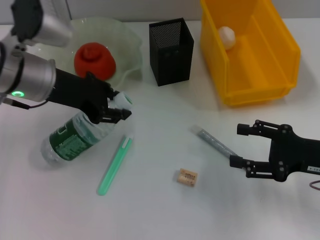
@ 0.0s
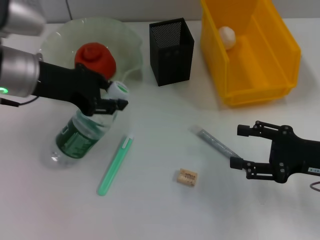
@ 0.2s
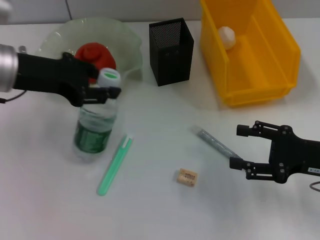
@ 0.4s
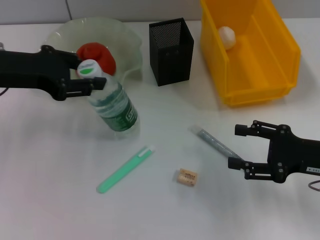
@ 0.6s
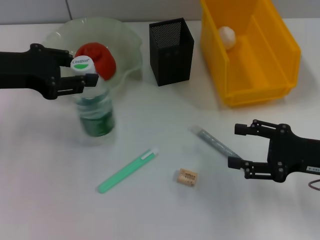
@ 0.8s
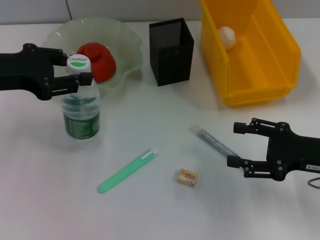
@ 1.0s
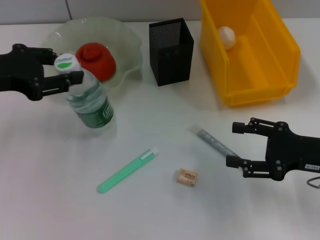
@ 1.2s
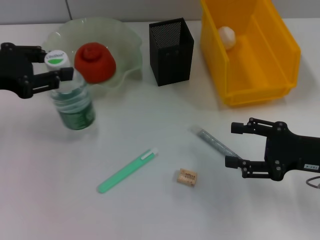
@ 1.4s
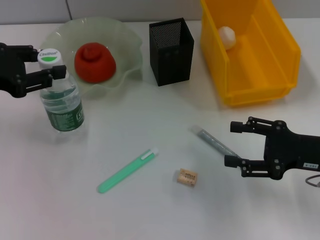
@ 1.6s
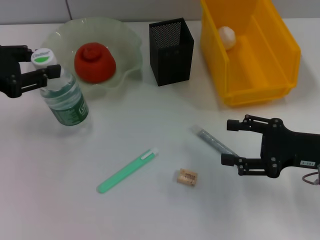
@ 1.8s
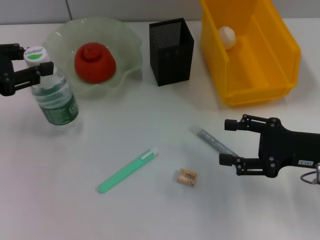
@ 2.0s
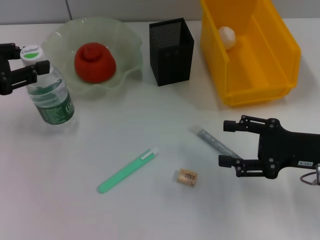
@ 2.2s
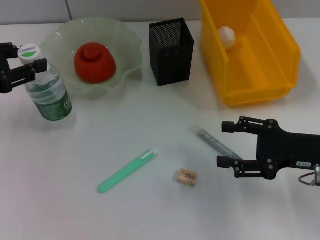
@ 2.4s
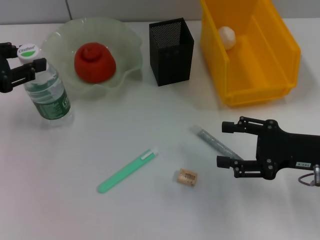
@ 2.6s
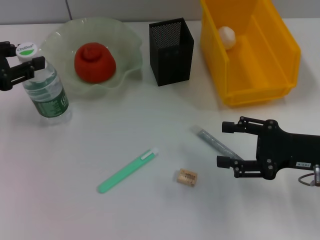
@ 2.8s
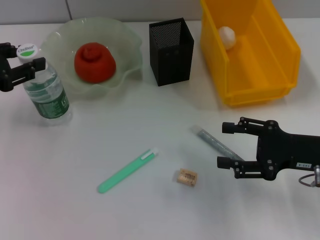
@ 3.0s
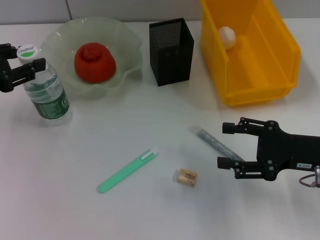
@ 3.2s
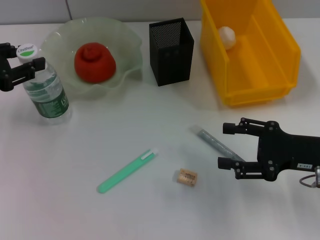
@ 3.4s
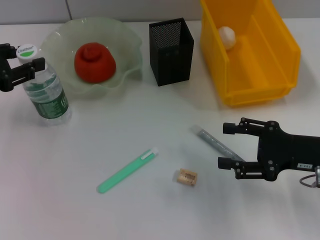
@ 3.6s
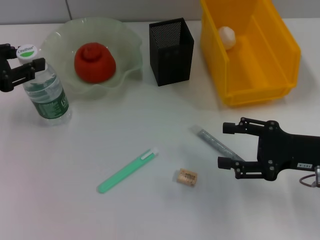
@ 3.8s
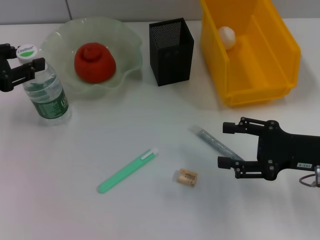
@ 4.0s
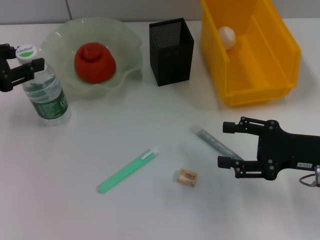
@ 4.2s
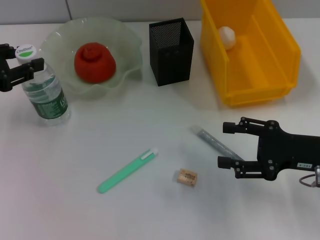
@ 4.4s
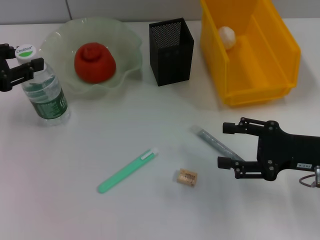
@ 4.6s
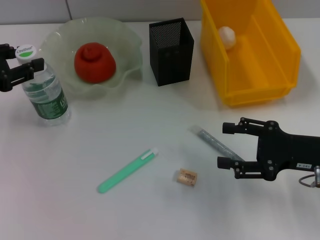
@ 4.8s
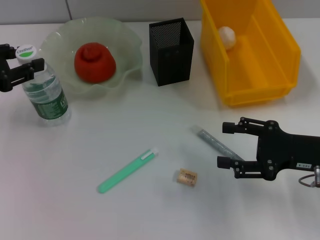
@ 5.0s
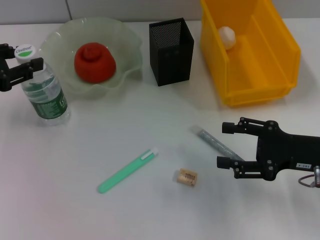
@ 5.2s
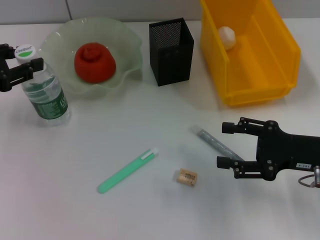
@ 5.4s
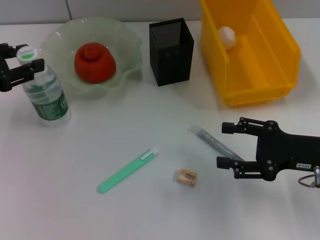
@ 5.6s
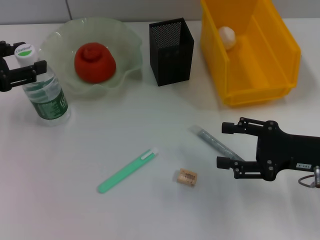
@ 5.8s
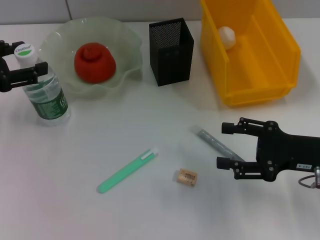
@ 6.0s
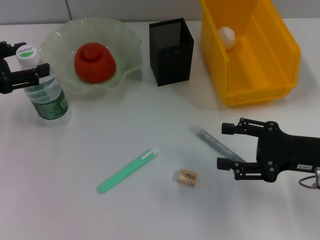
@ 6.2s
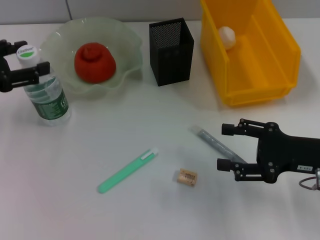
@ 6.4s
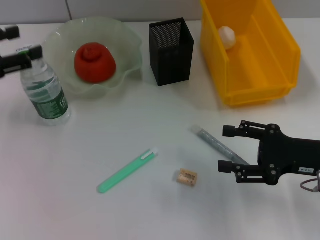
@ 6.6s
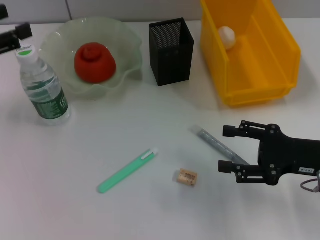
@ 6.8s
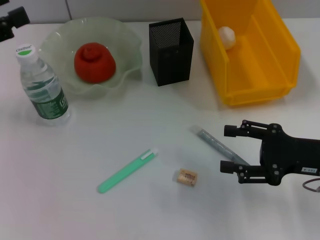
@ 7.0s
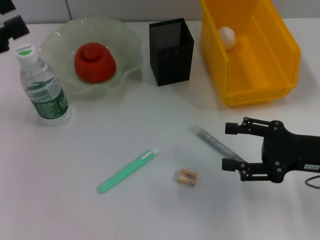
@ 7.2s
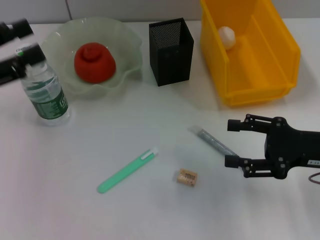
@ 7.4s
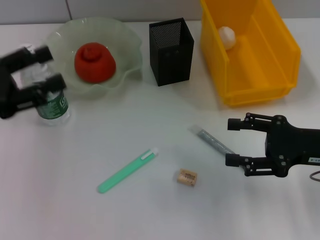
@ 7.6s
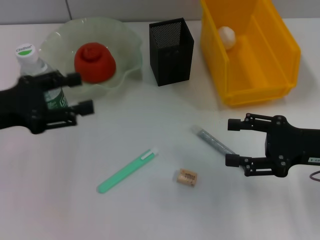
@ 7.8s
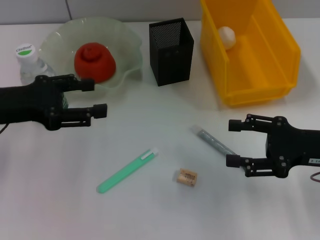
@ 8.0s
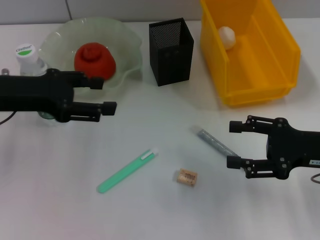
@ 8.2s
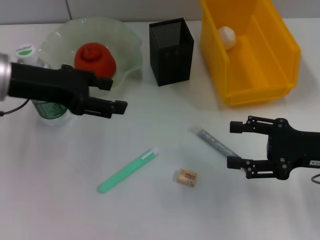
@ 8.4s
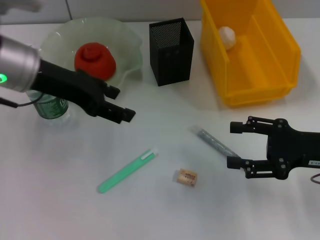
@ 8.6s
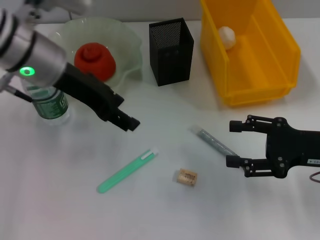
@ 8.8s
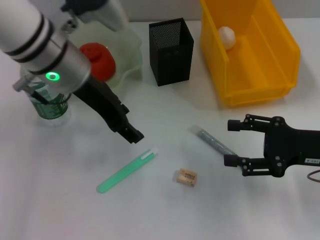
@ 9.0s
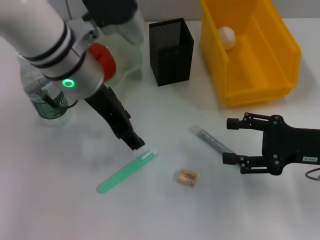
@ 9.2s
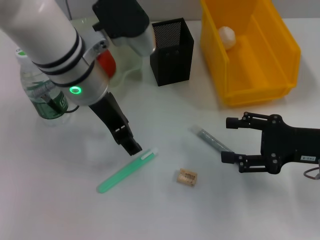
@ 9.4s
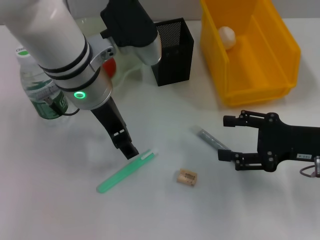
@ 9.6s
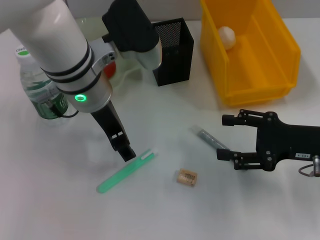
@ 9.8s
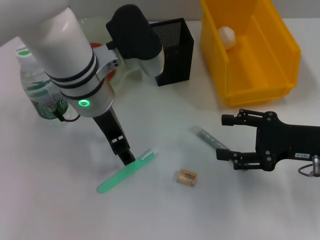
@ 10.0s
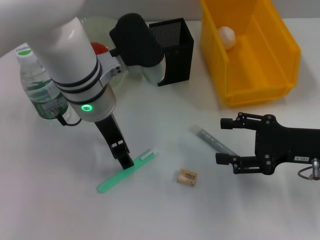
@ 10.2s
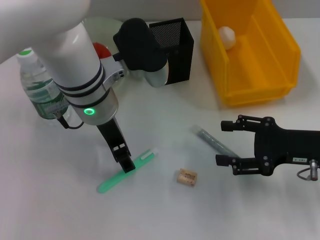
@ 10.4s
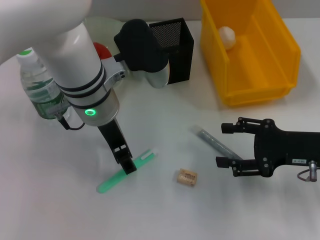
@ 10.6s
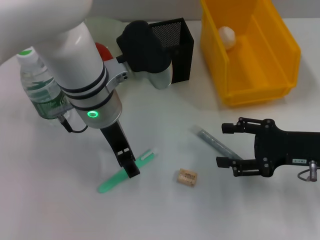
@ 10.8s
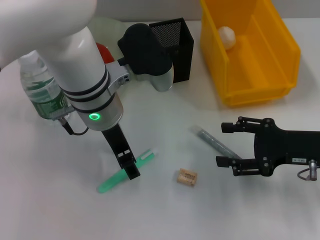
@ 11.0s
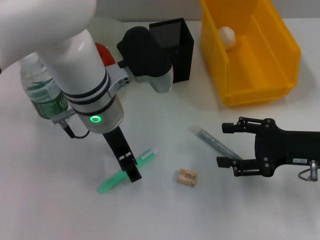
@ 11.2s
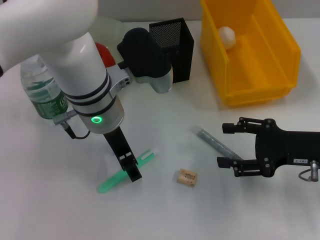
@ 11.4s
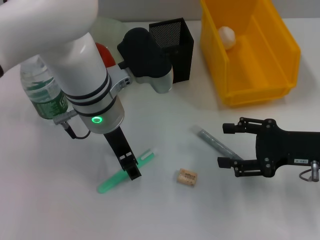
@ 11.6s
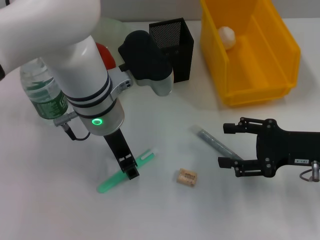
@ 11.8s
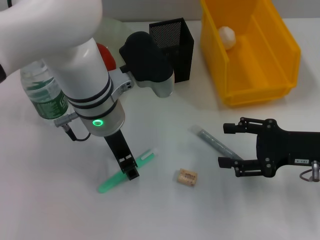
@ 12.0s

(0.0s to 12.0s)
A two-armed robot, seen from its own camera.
Step, 0.0s - 6.2s: Place the water bottle on the table with the left hand.
0.0s - 1.6s: The left gripper shifts approximately 10 cm to the left.
1.6s - 3.0s: There are only small adjustments of the grippers.
3.0s - 6.0s: Neither gripper changes place.
7.6s - 9.0s: The left gripper goes approximately 20 cm to the right and forward.
9.0s - 10.4s: The left gripper changes place by some 5 cm.
10.4s - 12.0s: There are only small adjustments of the grippers.

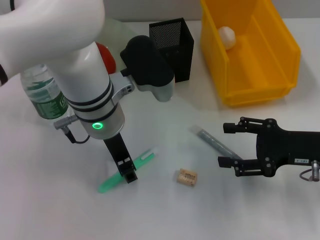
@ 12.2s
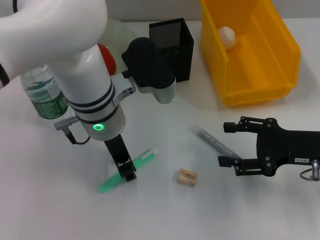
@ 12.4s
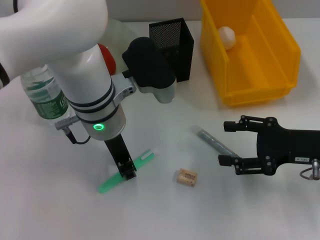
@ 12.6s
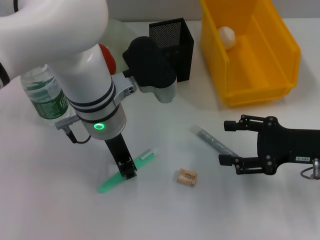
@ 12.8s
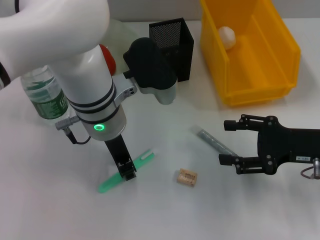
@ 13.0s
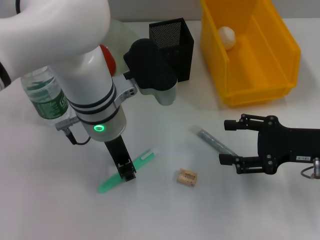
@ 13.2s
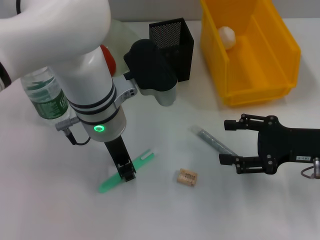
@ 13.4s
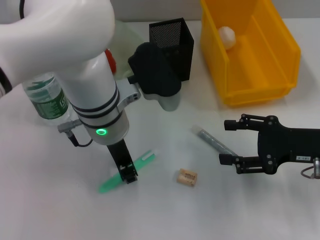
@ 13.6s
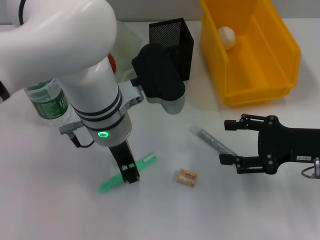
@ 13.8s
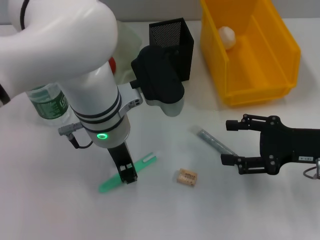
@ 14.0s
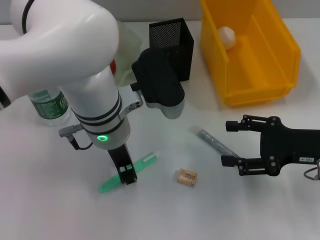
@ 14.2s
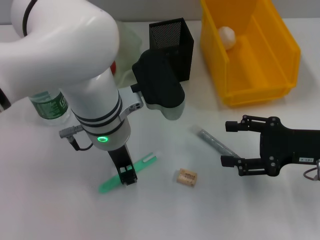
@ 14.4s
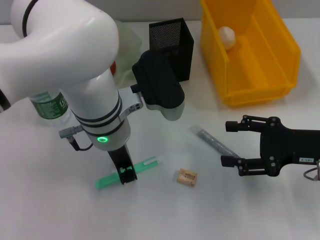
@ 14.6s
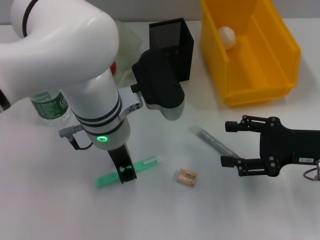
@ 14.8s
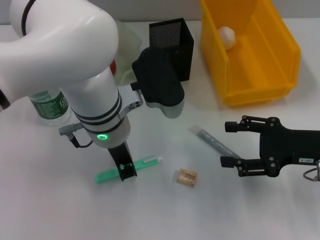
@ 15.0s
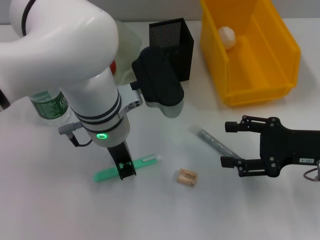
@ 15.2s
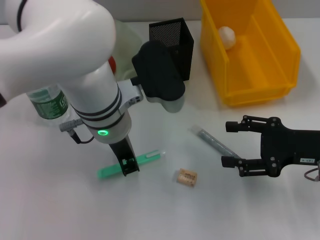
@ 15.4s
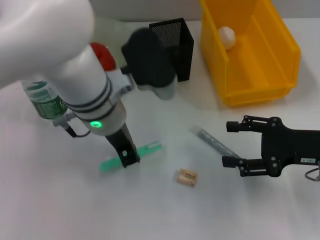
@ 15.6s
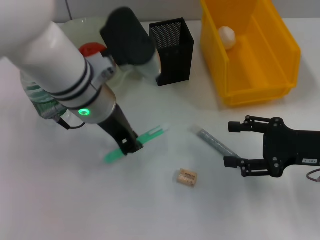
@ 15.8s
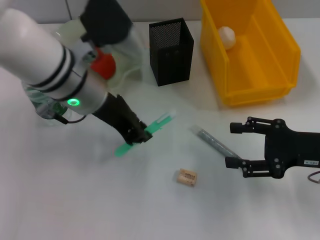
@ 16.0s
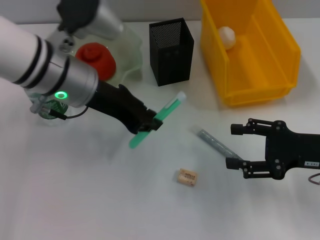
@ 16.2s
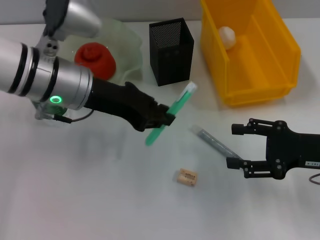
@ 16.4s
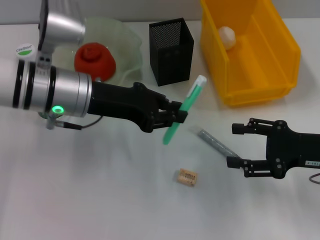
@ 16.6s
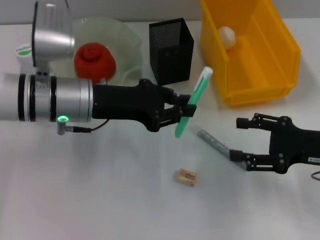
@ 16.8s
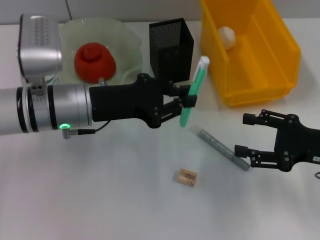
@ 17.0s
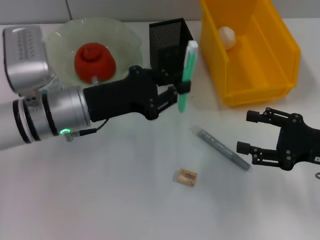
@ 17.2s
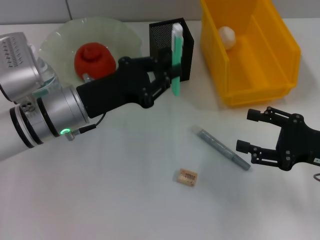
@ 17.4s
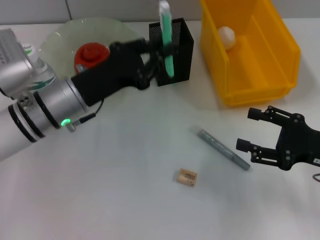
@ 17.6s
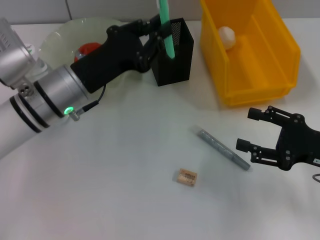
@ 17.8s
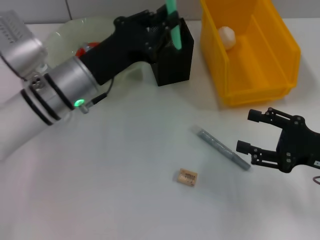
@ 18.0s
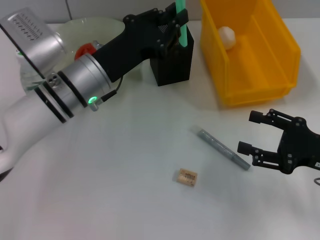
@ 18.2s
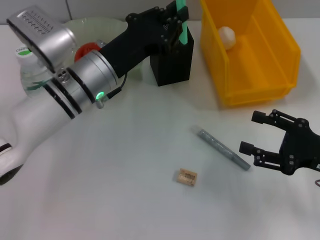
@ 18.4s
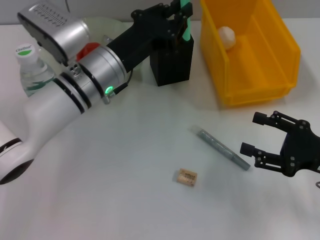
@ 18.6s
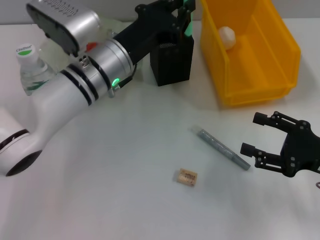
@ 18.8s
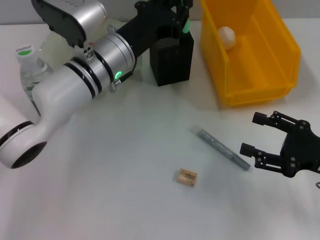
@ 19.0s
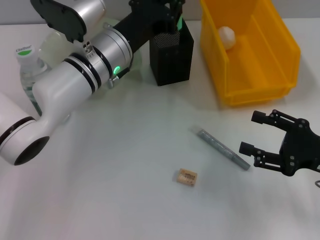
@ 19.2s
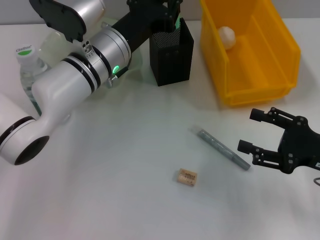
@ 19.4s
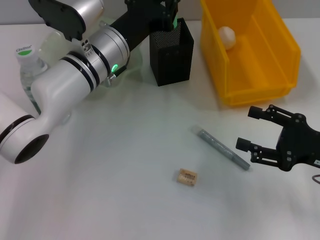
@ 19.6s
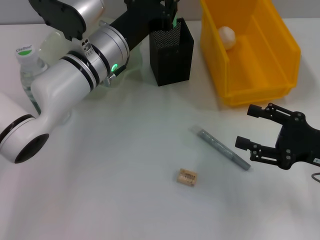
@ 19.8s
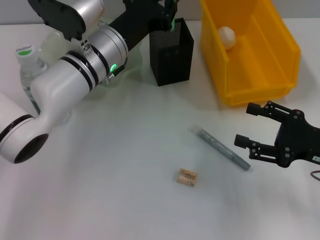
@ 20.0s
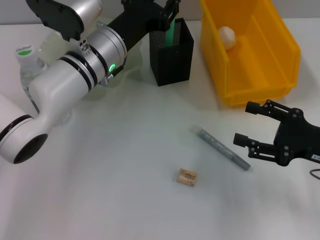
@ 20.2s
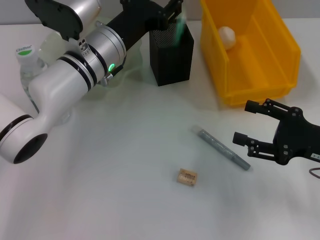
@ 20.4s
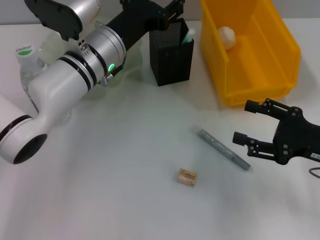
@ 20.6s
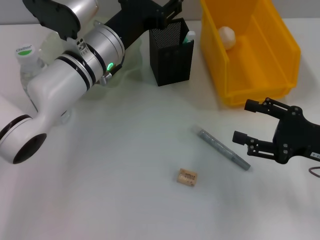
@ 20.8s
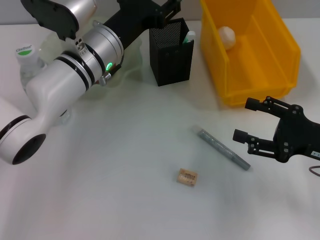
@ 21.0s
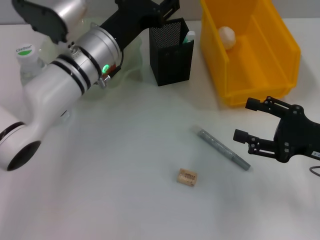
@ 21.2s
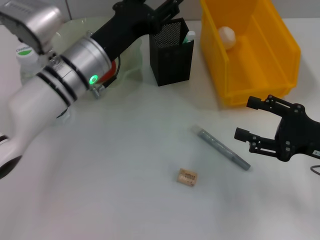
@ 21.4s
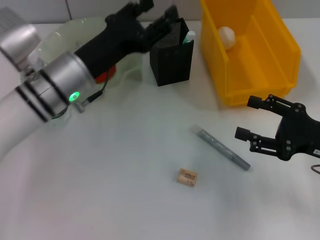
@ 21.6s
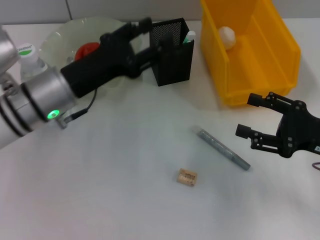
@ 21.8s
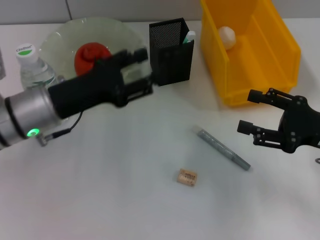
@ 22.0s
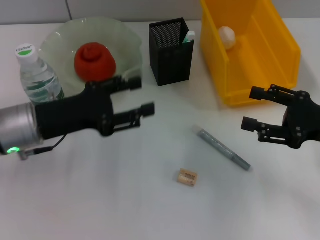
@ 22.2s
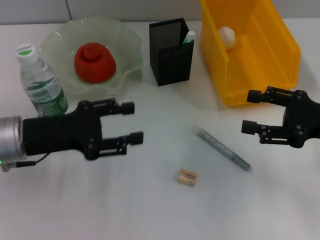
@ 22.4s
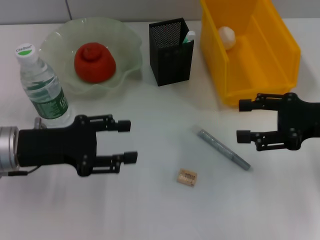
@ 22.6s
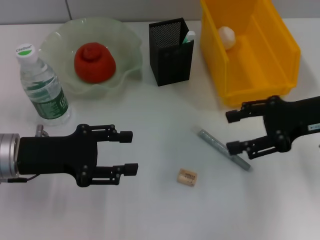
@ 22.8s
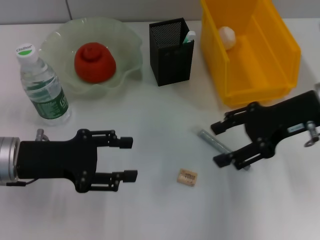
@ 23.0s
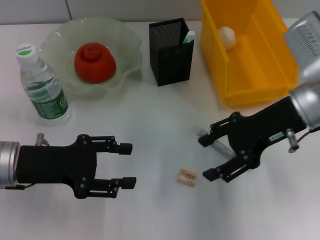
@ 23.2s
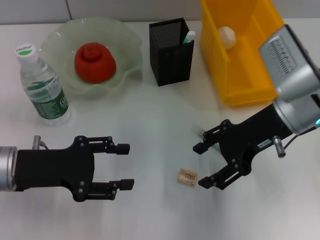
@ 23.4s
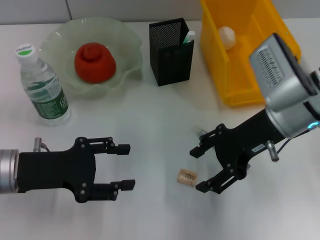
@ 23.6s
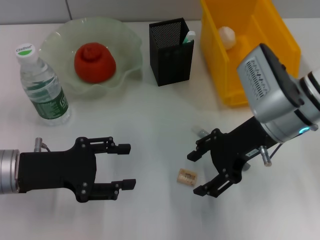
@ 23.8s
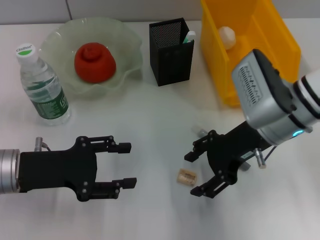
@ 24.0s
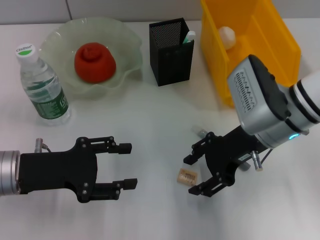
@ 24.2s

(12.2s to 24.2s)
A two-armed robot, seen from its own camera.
Step, 12.2s - 14.8s: Grab the blue utility knife with the left hand.
Step, 15.0s - 20.2s: Place the blue utility knife into the pen holder with the left hand.
12.2s - 13.8s: The grippers stay close to where they were, moving slightly.
13.8s - 15.2s: Neither gripper changes place.
15.2s - 16.6s: The left gripper shifts about 10 cm to the left.
18.2s - 19.8s: The left gripper changes place by about 5 cm.
19.8s - 21.2s: The left gripper opens up.
21.2s - 22.6s: The right gripper goes approximately 5 cm upward. Meanwhile the left gripper goes roughly 15 cm to the left and backward.
22.6s - 24.2s: The right gripper shifts approximately 15 cm to the left.
